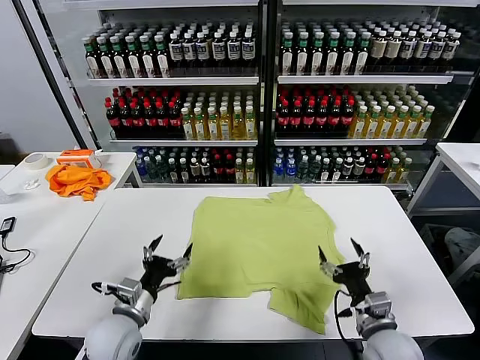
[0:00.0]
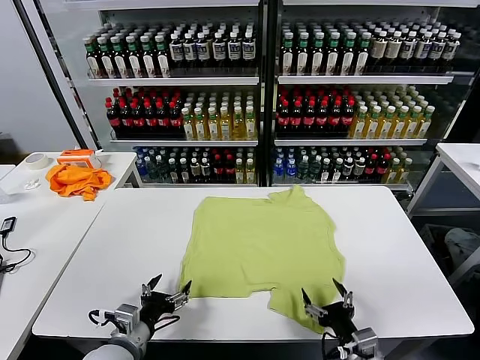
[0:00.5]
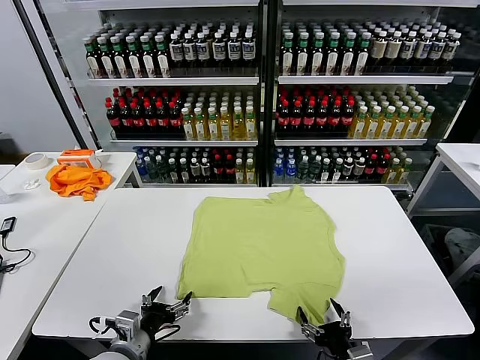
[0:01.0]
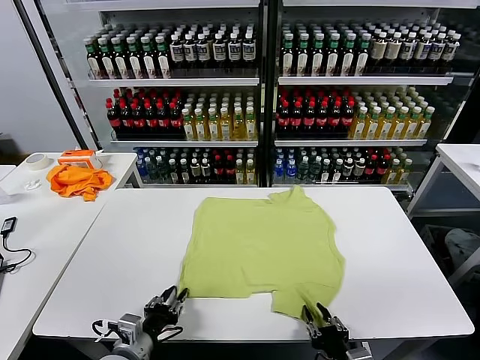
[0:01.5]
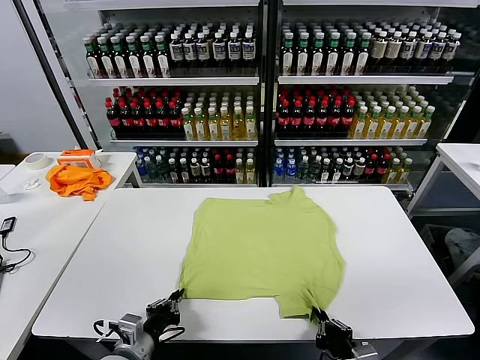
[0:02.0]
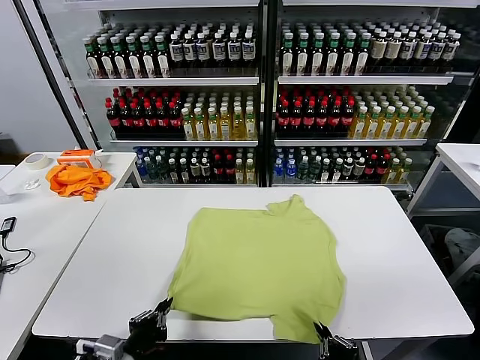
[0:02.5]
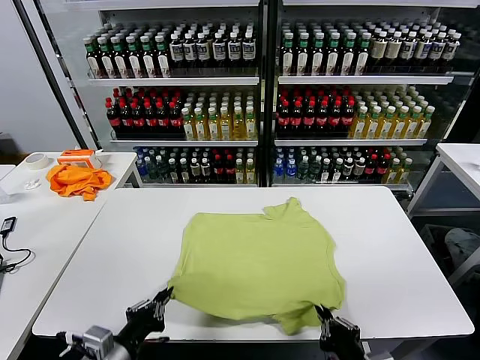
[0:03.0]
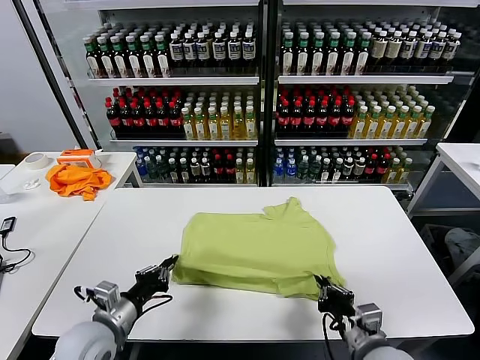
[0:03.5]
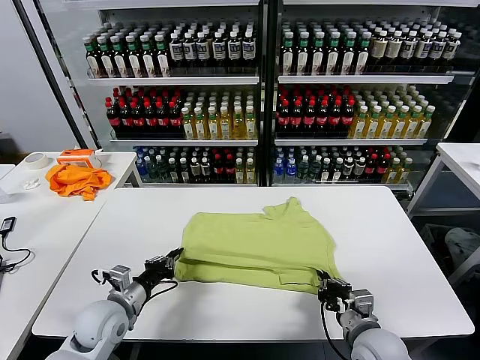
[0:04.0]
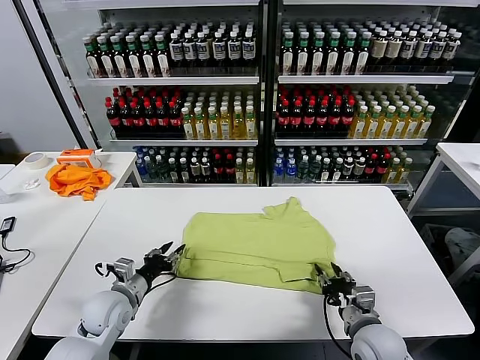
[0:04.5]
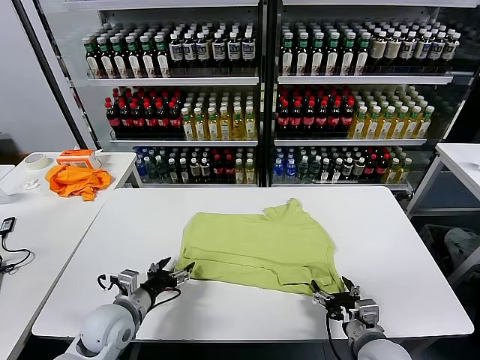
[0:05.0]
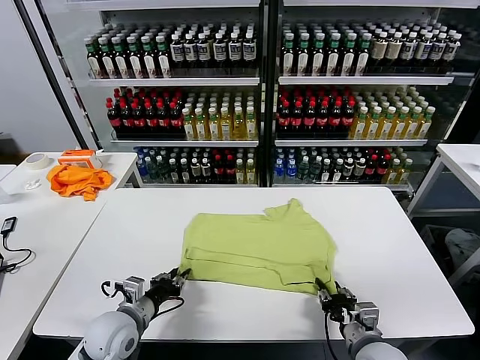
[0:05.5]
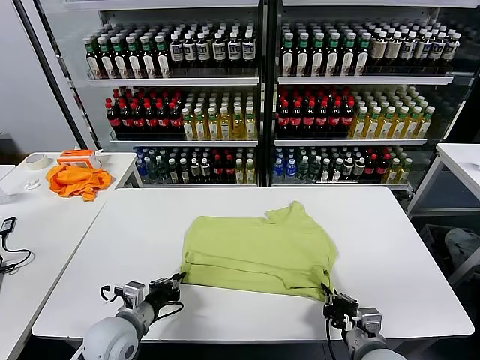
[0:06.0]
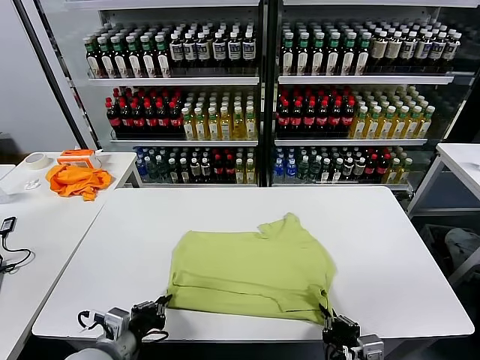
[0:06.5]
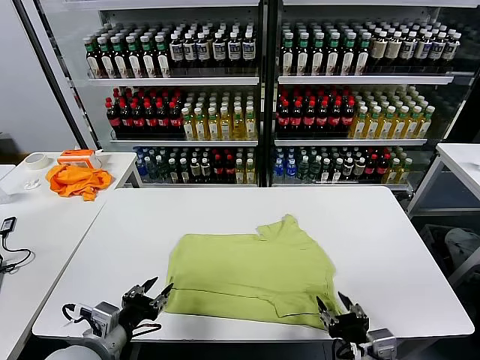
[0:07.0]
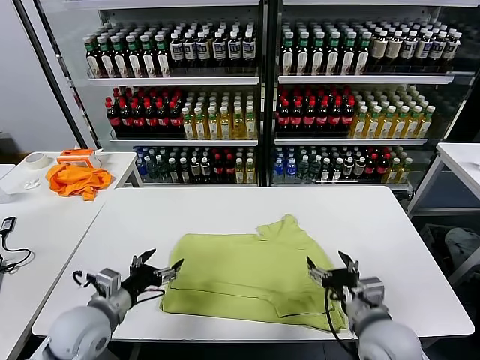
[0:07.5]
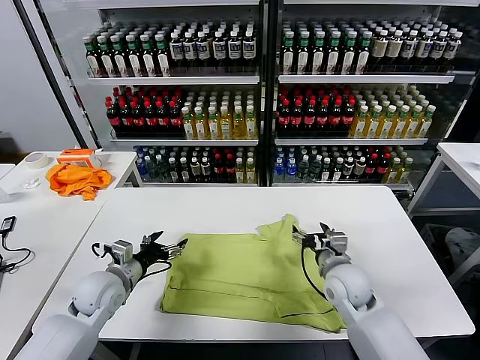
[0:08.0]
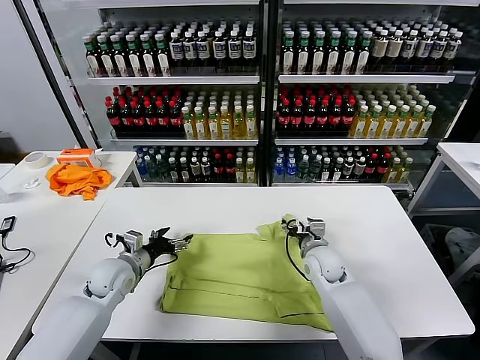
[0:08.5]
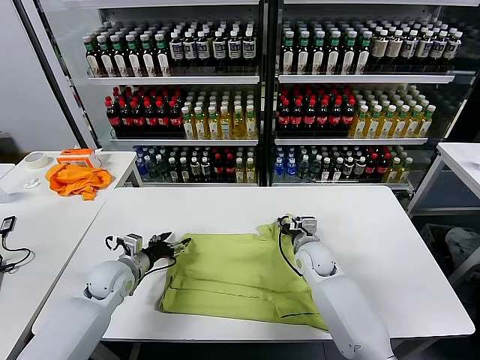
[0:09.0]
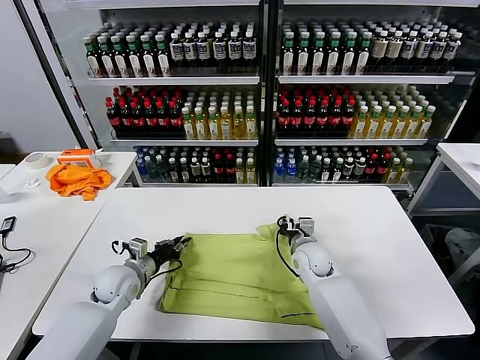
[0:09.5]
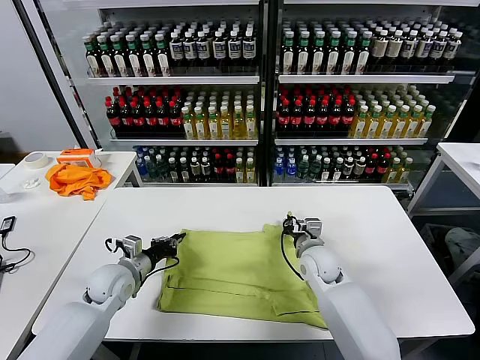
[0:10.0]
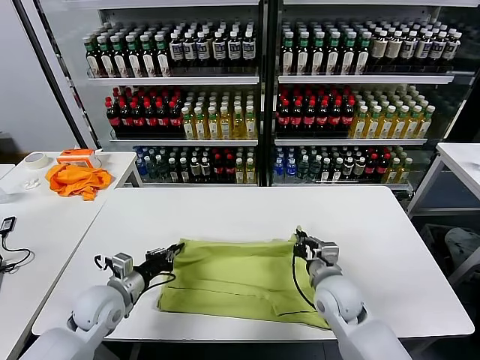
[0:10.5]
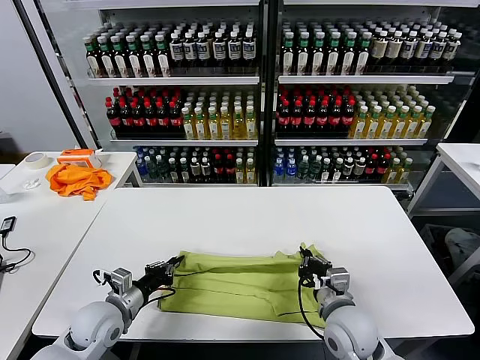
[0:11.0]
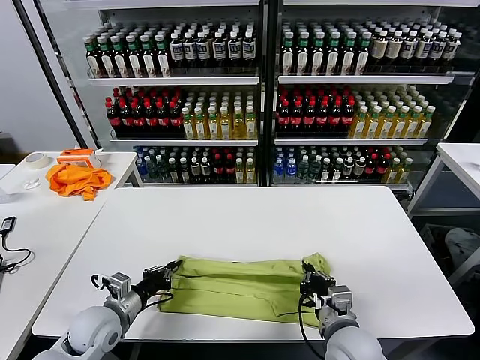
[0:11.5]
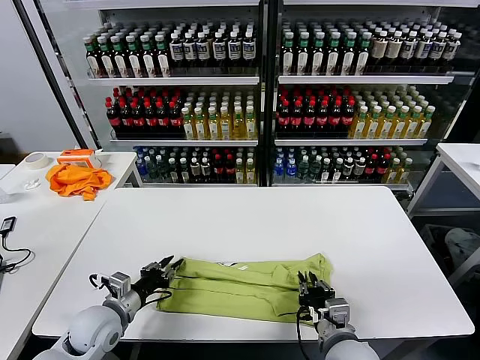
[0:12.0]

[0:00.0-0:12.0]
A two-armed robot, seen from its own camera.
Task of the whole recording: fold and organize the clothes.
Step, 0:00.0 to 0:02.0: use both grippers simultaneously to clamp the lower edge of the clothing fabric.
Step, 0:02.5 to 0:04.5: use both grippers to drag the lower edge of the fabric forward and fold it over the upper edge.
Step, 0:05.0 to 0:06.5: Drag the clothes downward with both gripper.
Step, 0:07.0 to 0:09.5: use both grippers simultaneously to clamp the upper edge of the clothing fabric.
0:02.0 to 0:04.0: The left gripper heads forward and to the left, covering some 10 cm. Meanwhile the right gripper moves forward, about 15 cm.
0:04.0 to 0:06.0: The right gripper goes some 5 cm backward, and opens, then closes again. Meanwhile the left gripper opens, then closes once more.
0:06.0 to 0:08.0: The right gripper is displaced forward by roughly 20 cm, and opens up. The left gripper is displaced forward by about 10 cm, and opens.
0:08.0 to 0:10.0: The left gripper closes up, while the right gripper closes.
0:10.0 to 0:12.0: The right gripper travels backward by roughly 20 cm, and opens up. Meanwhile the left gripper heads backward, covering about 10 cm.

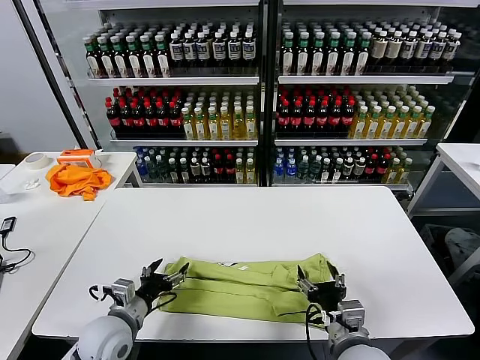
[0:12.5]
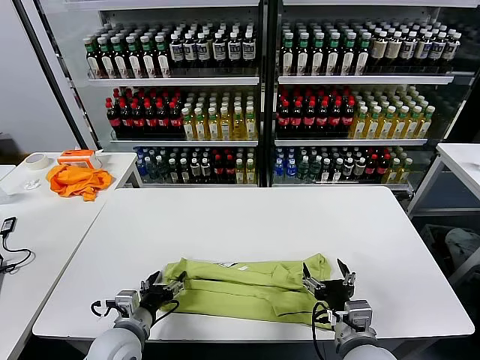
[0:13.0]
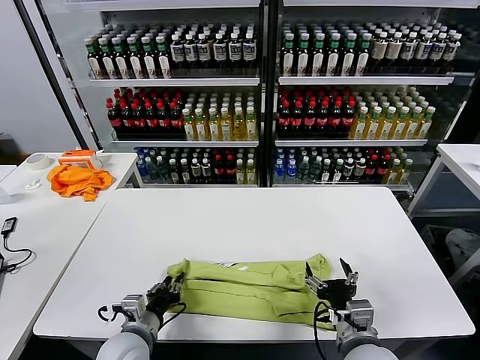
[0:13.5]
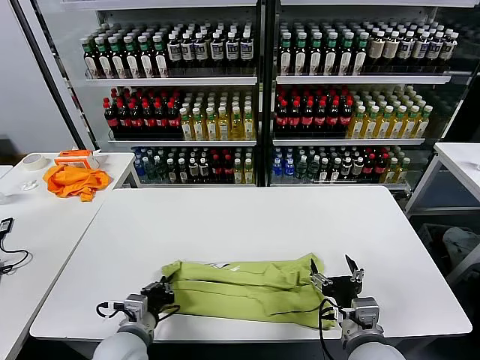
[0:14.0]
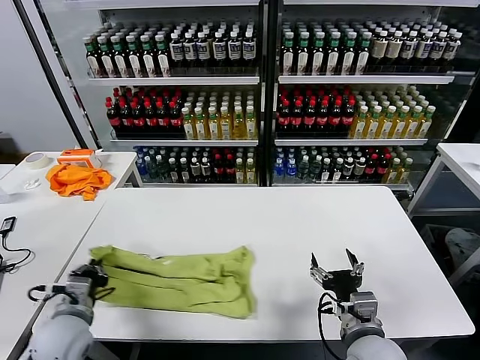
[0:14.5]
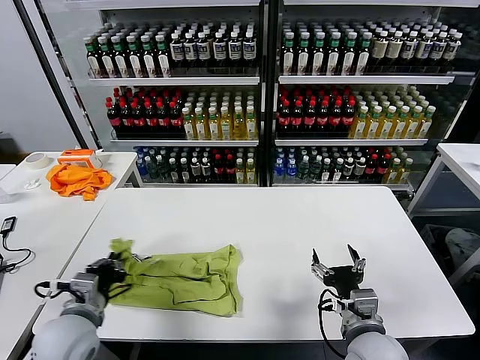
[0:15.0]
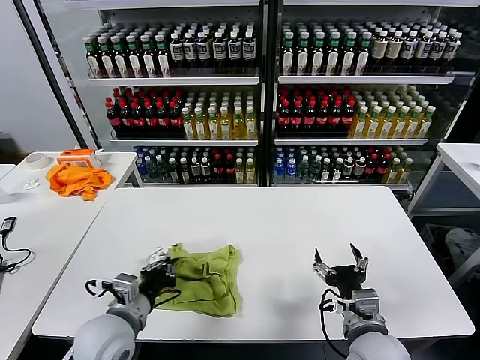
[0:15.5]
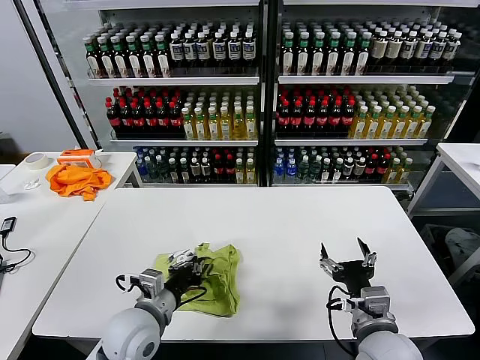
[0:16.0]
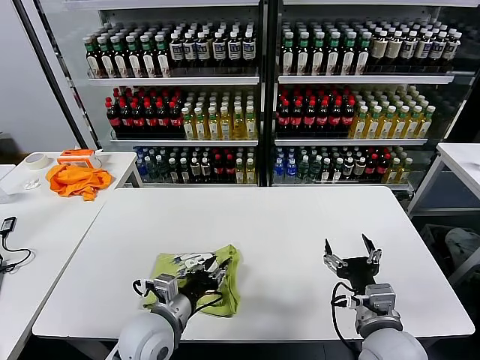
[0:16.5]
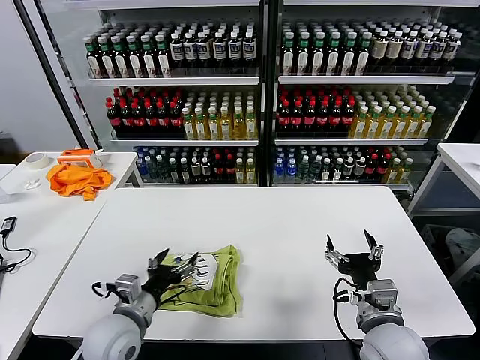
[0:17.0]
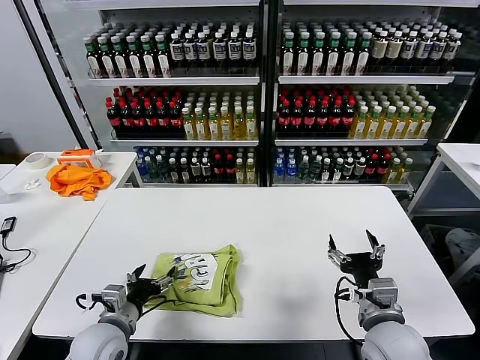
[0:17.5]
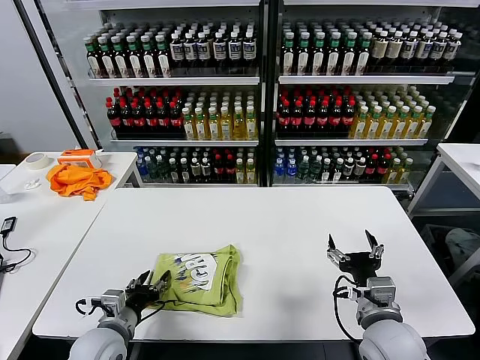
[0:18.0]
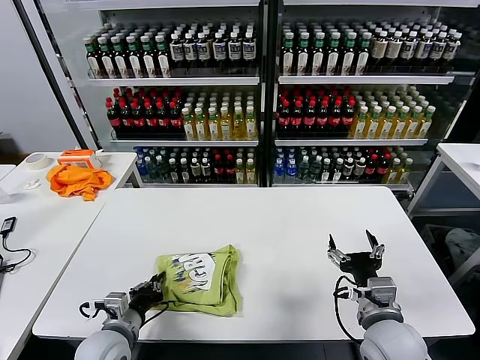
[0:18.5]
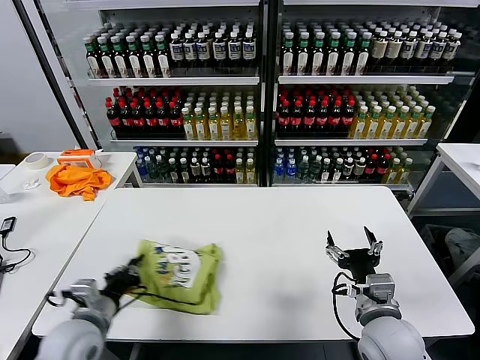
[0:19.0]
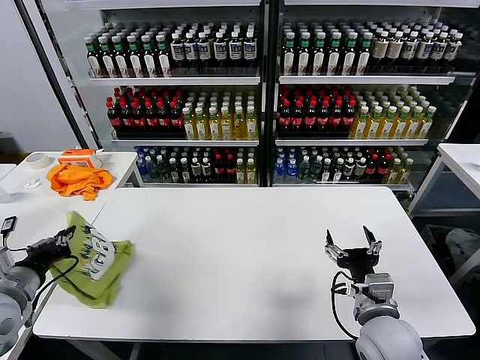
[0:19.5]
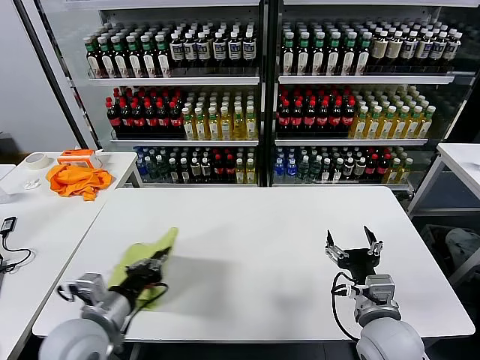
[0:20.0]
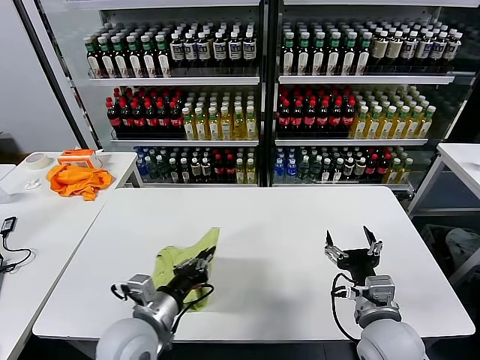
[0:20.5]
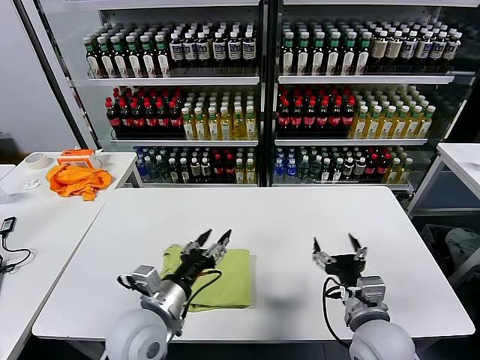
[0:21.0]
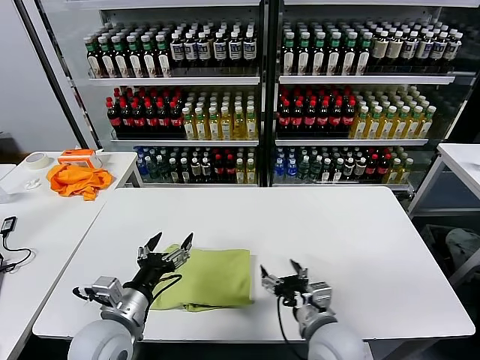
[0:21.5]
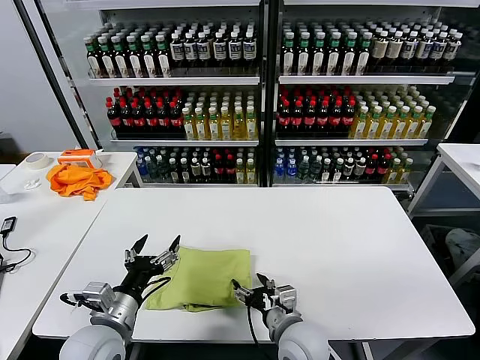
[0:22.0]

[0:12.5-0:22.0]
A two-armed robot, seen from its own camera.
Task of the whole recording: fold and organize the clothes.
Step, 0:12.5 to 0:13.5: use the left gripper to clamp the left edge of the fabric.
Step, 0:14.0 to 0:16.0: use the left gripper to drag the left edge of the fabric to the left and folds it over the right edge.
Step, 0:17.0 to 0:20.5: Flip the folded clothes over with left gripper.
0:12.5 to 0:14.5: The left gripper travels to the left by some 5 cm, and closes.
0:14.5 to 0:16.5: The left gripper moves to the right, about 15 cm, and opens its fingers.
0:16.5 to 0:18.0: The left gripper travels to the left by some 10 cm.
0:18.0 to 0:20.0: The left gripper goes roughly 10 cm upward, and closes its fingers.
0:20.0 to 0:22.0: The right gripper heads to the left and downward, covering approximately 15 cm. The left gripper goes to the right and returns, approximately 10 cm each way, and opens.

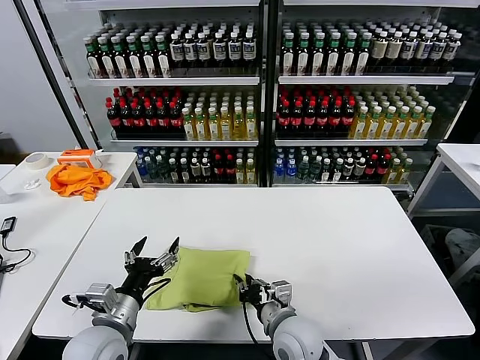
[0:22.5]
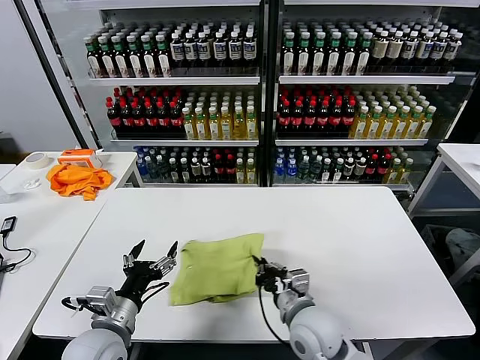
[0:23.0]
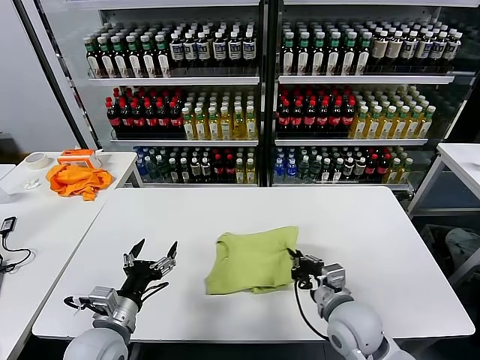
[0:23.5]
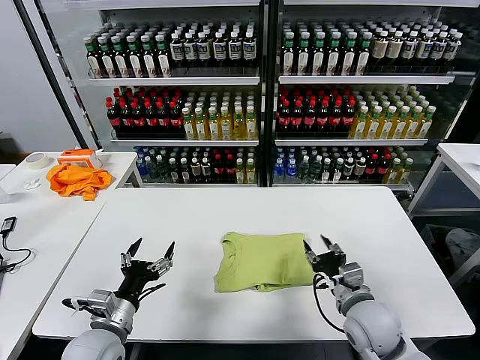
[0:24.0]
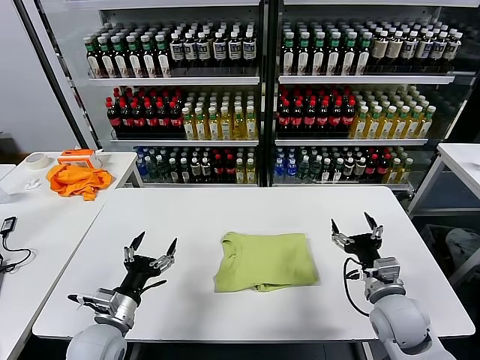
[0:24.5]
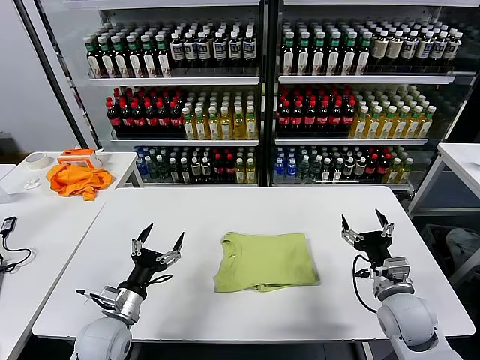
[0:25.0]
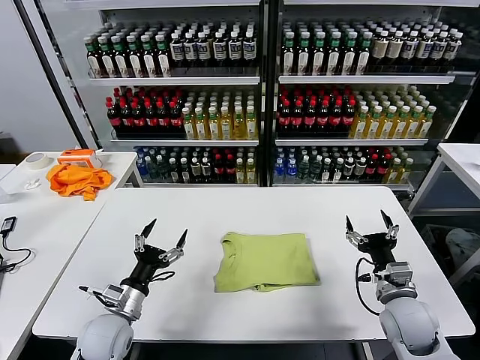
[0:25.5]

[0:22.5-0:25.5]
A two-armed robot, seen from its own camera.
Task of the whole recording: fold and organize the clothes.
0:22.5 to 0:24.0: The right gripper moves to the right, approximately 15 cm.
0:24.0 to 0:25.5: The left gripper moves approximately 5 cm, while the right gripper goes about 10 cm to the right, and opens up.
